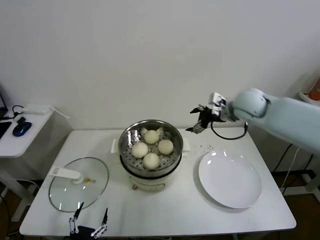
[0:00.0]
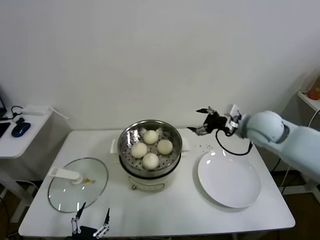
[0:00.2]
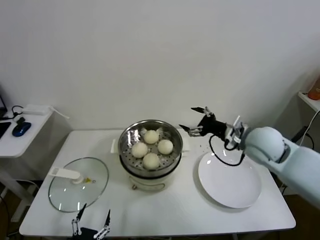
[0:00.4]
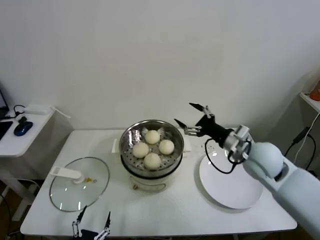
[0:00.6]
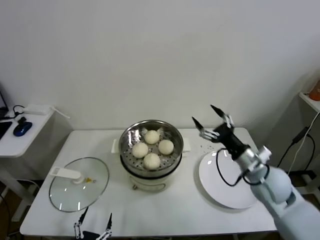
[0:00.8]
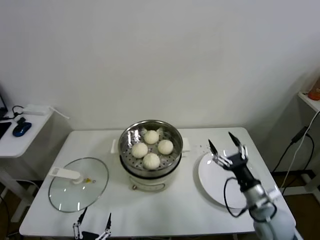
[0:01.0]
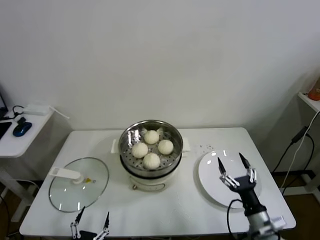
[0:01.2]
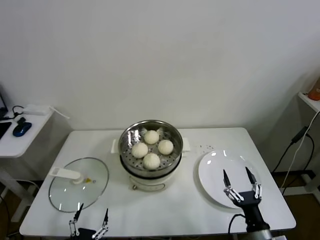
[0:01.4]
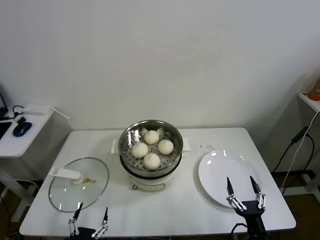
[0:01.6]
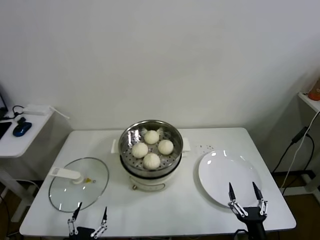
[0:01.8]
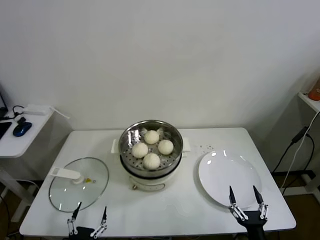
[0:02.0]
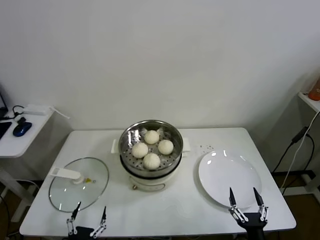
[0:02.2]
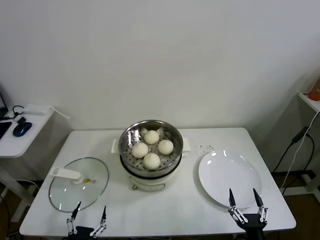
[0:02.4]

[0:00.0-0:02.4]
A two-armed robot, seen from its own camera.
Task of the whole recording: take steamed baozi put them in steamer.
0:00.0 to 0:01.2: The right gripper shifts roughly 40 cm backward and downward.
0:01.2 to 0:02.4: The right gripper goes approximately 15 cm backward and downward.
